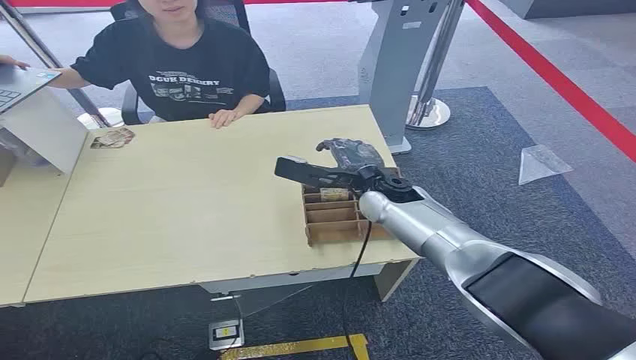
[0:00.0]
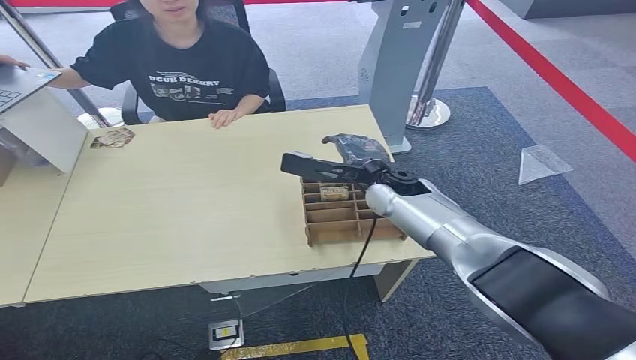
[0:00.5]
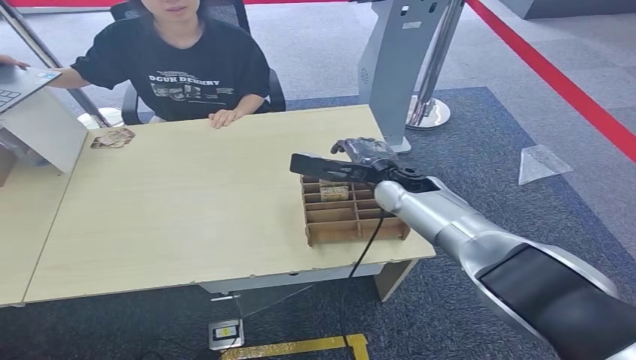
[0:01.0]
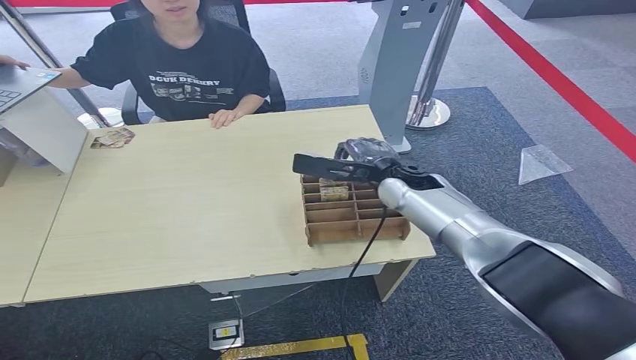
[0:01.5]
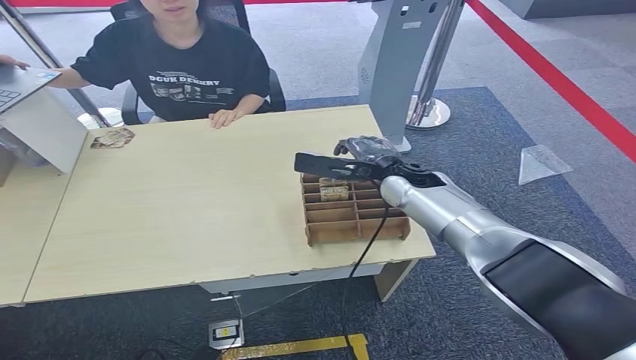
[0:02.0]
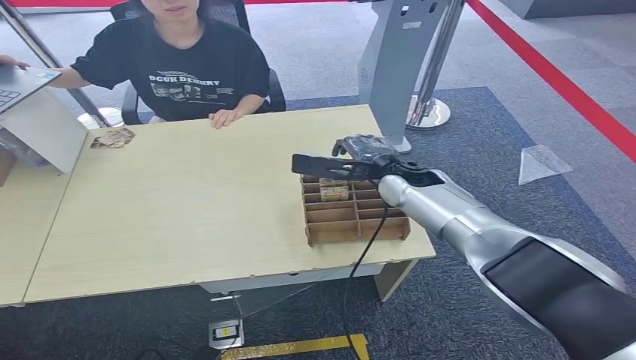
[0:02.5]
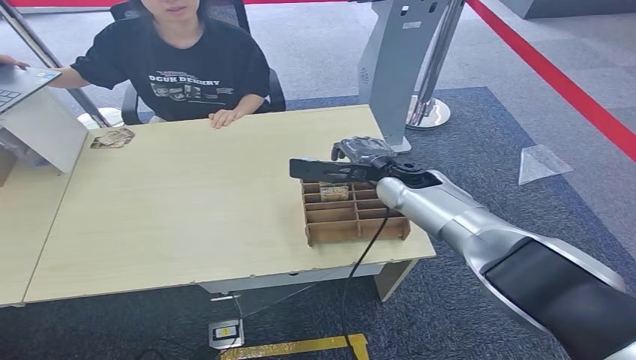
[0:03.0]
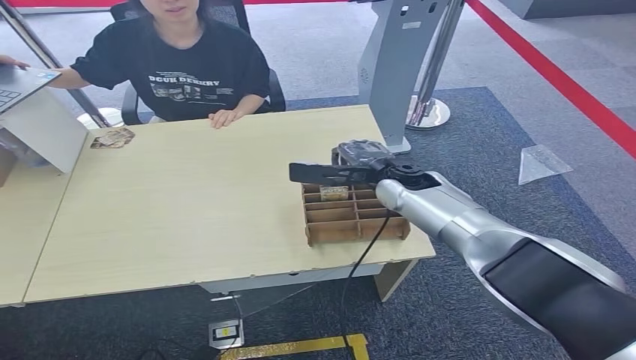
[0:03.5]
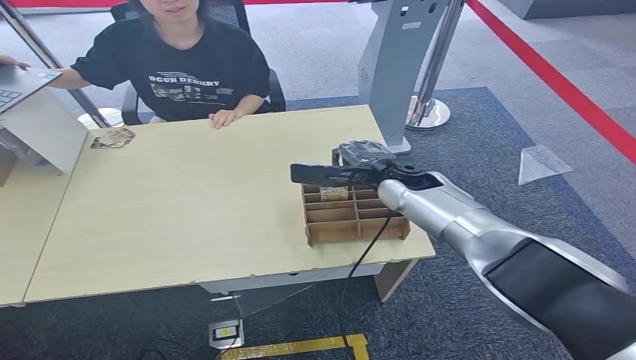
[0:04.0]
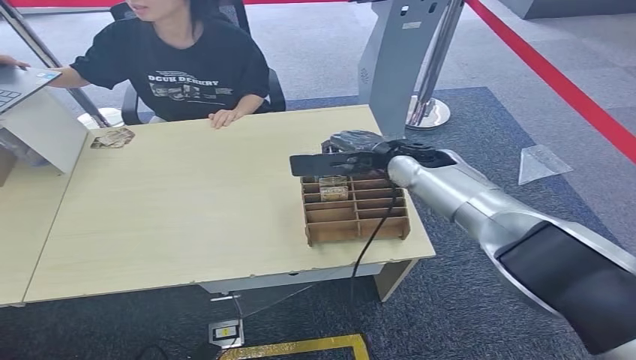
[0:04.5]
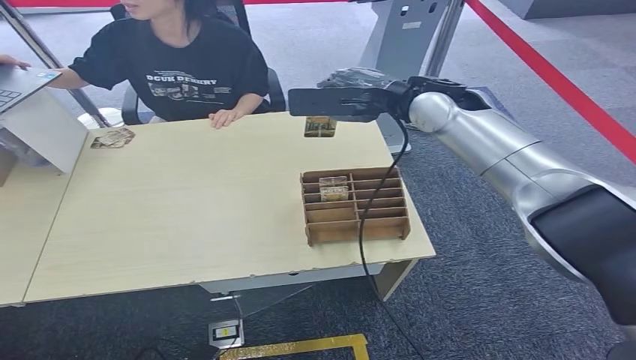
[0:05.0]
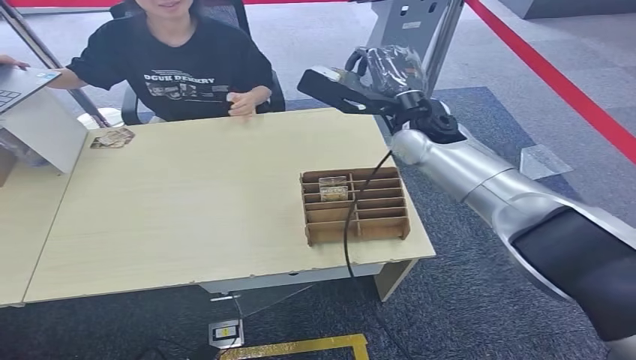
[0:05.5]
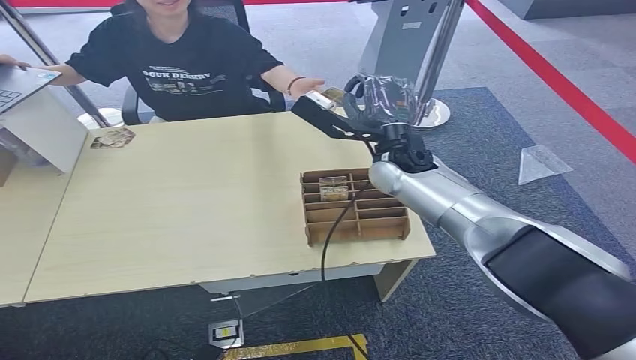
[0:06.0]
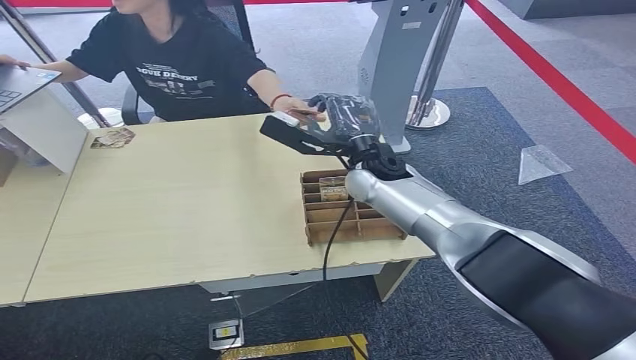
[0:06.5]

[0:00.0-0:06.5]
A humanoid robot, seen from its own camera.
Step, 0:00.0 to 0:05.0: Pick up the key card from the card box.
Step, 0:05.5 to 0:06.5: Hand the key card to the target.
0:02.0 to 0:04.5: The hands make only small movements.
0:04.5 to 0:06.5: The right hand is displaced to the left by roughly 5 cm, and goes upward and returns, approximately 15 cm each way.
